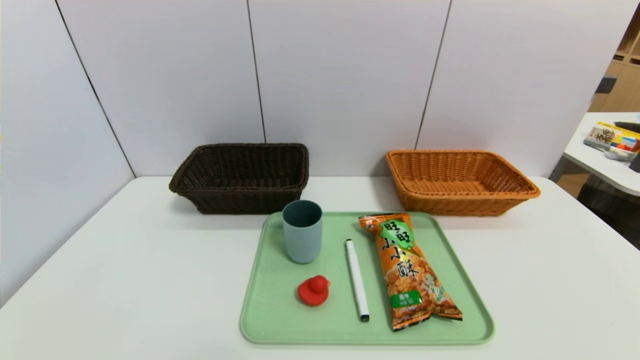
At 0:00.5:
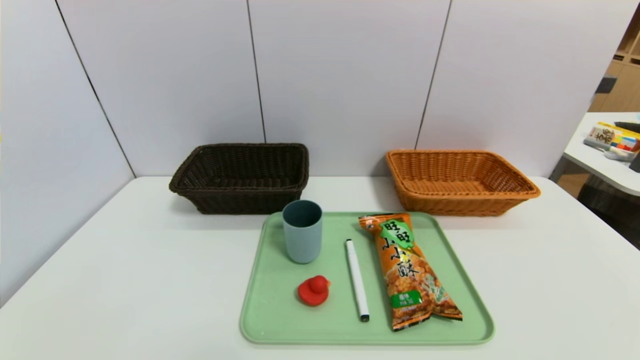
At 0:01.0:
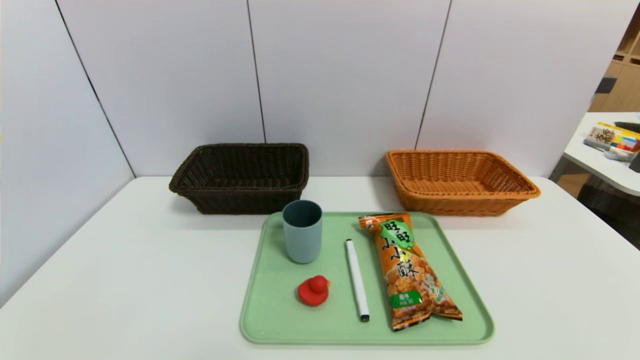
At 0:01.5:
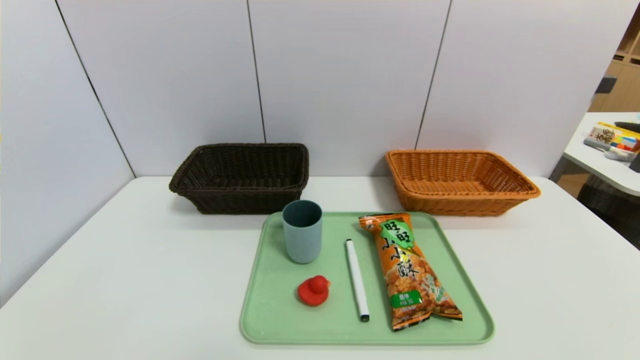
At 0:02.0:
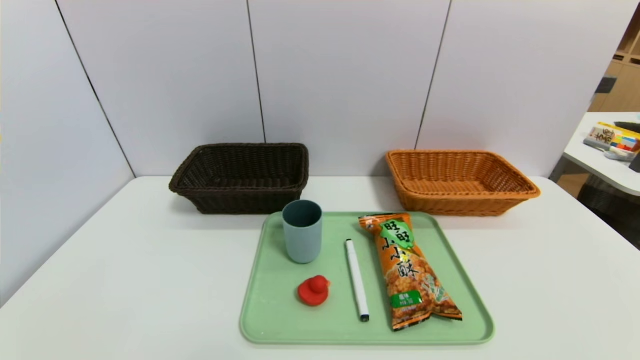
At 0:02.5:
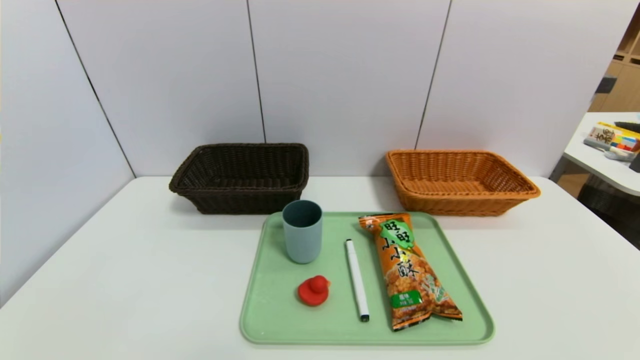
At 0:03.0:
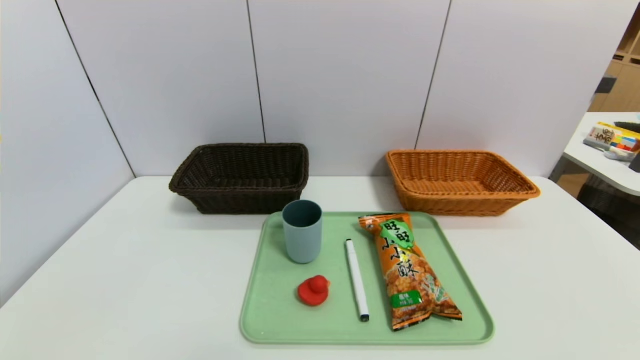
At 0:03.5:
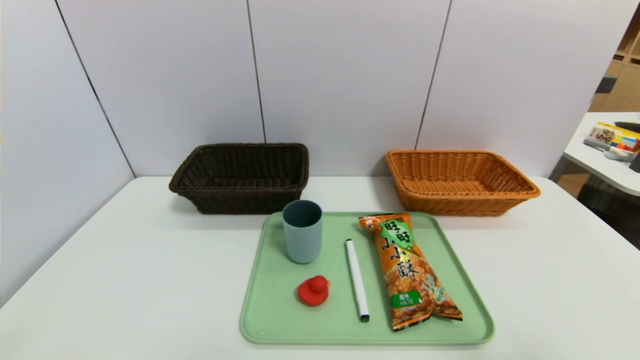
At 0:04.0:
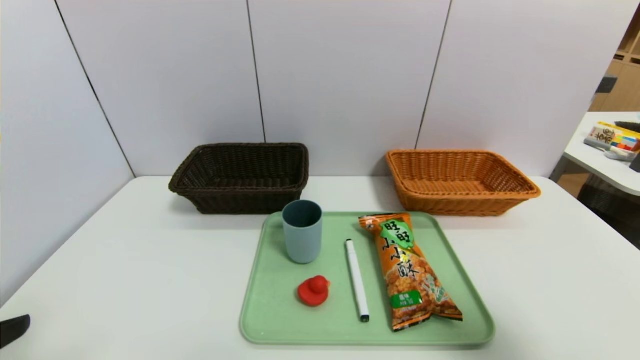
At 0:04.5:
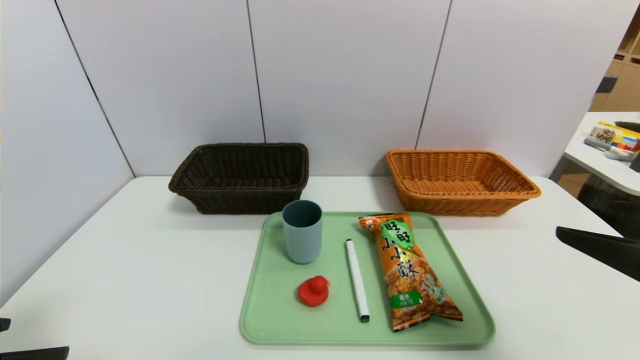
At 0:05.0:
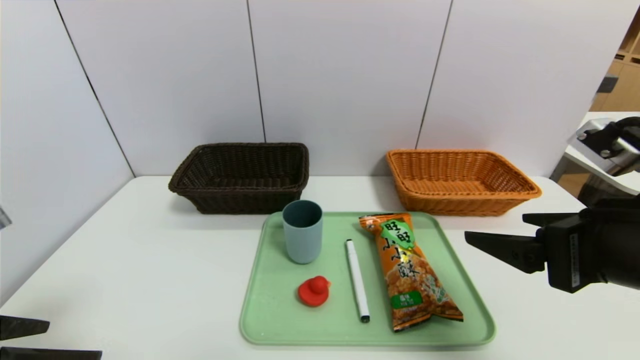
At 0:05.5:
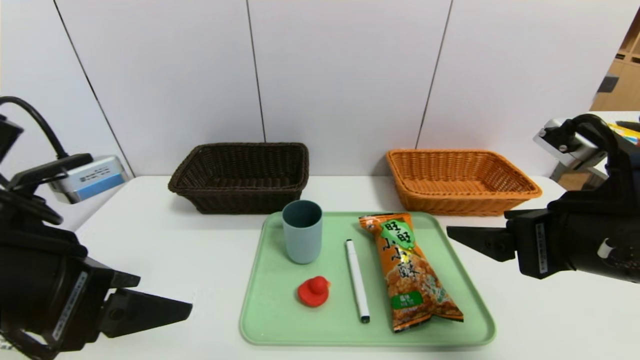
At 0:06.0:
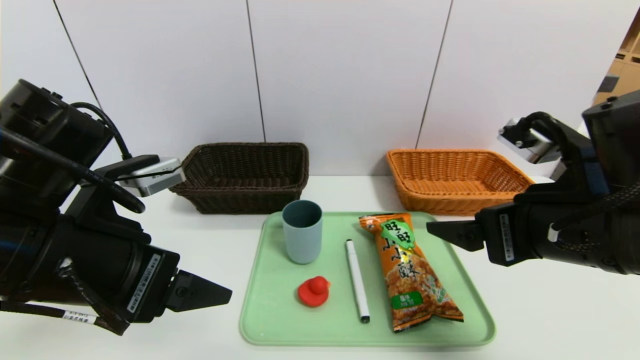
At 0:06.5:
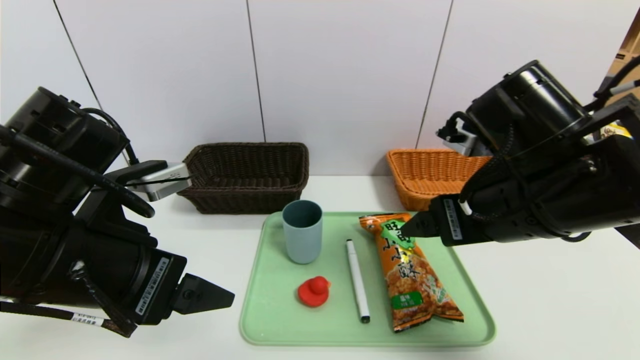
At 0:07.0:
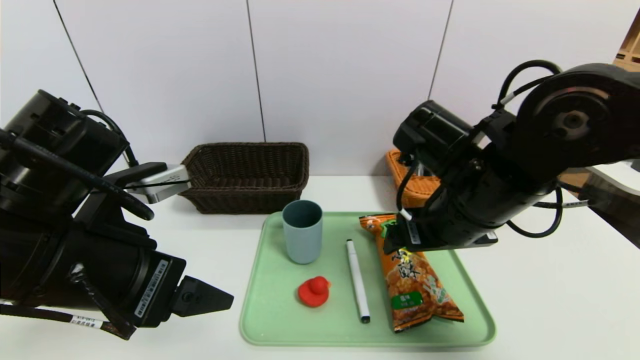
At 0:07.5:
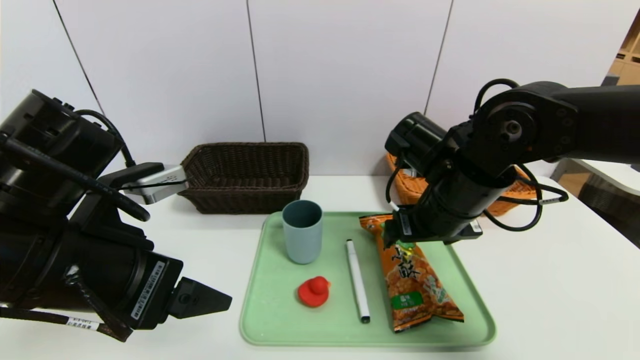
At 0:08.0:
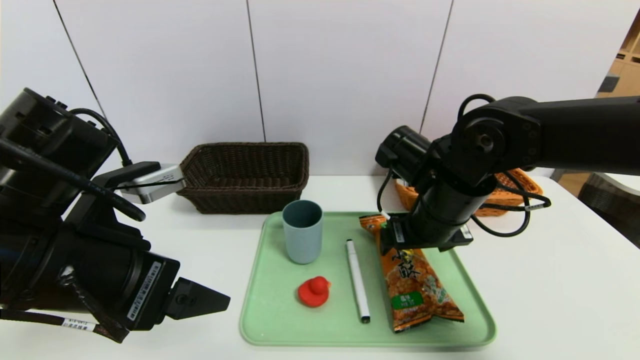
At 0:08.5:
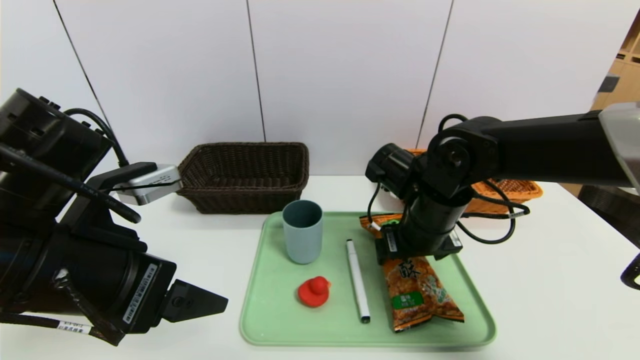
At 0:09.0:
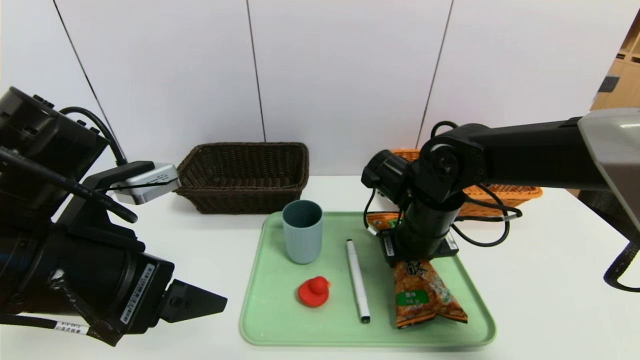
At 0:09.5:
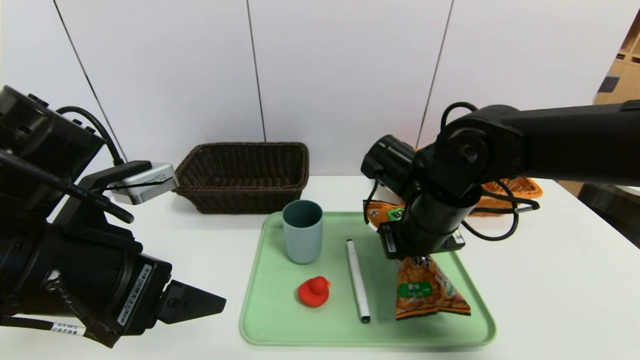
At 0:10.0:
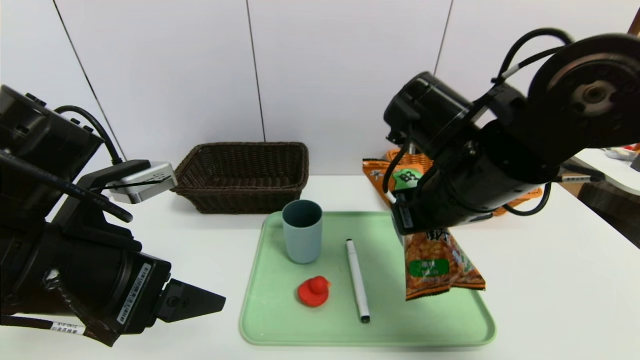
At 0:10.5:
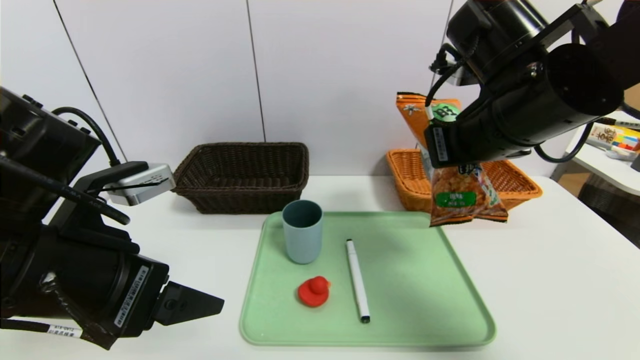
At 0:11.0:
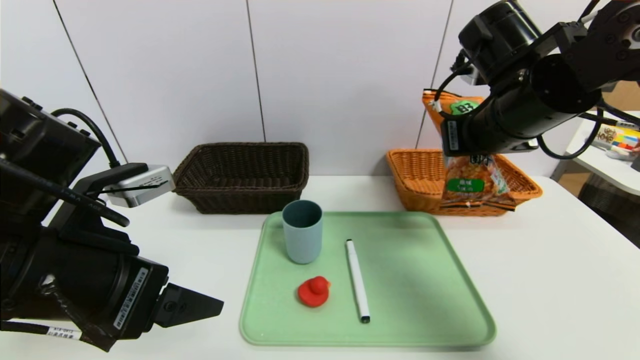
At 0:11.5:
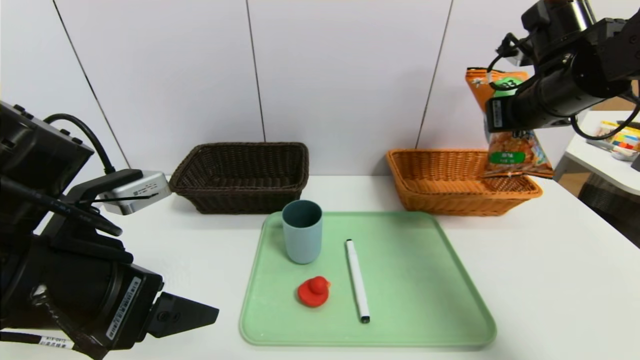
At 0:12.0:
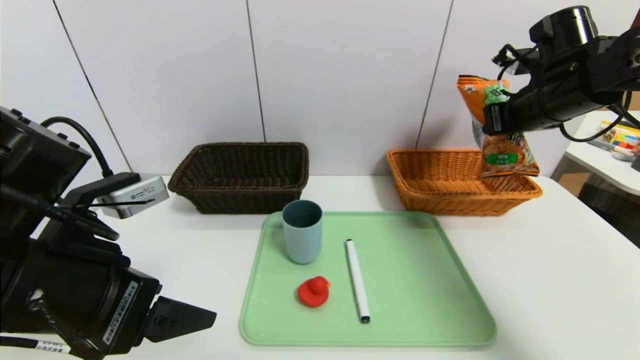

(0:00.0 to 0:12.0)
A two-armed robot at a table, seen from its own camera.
Task of the whole recording: place the food in the right basket with the right gripper, and place the non food items in the left basket with the left gripper.
0:00.0 - 0:02.0: The two grippers keep their place.
0:02.0 - 0:04.0: The right gripper travels upward and forward by approximately 20 cm.
0:04.0 - 0:06.0: The right gripper goes about 15 cm to the left and forward. The left gripper is displaced forward and to the right by approximately 15 cm.
0:06.0 - 0:08.0: The right gripper is displaced forward, to the left and downward by about 15 cm.
0:08.0 - 0:10.0: The right gripper is displaced upward by about 5 cm, and closes.
0:10.0 - 0:12.0: The right gripper goes some 20 cm to the right and forward.

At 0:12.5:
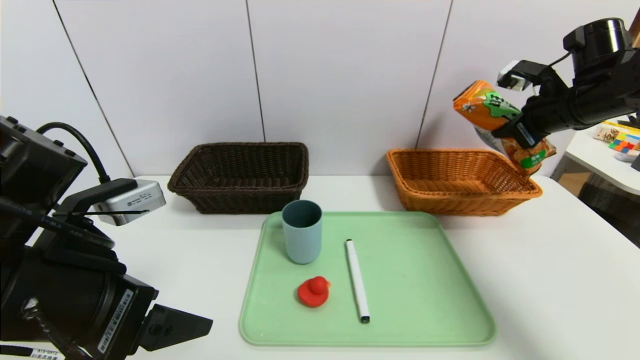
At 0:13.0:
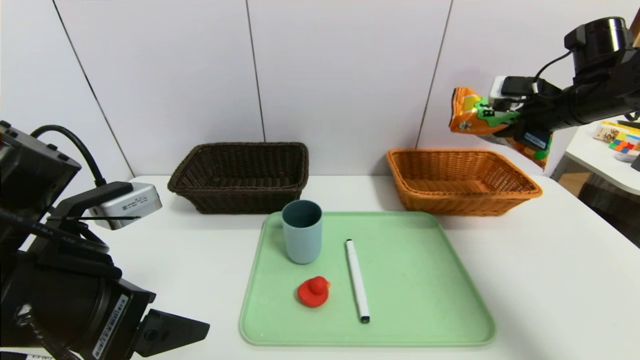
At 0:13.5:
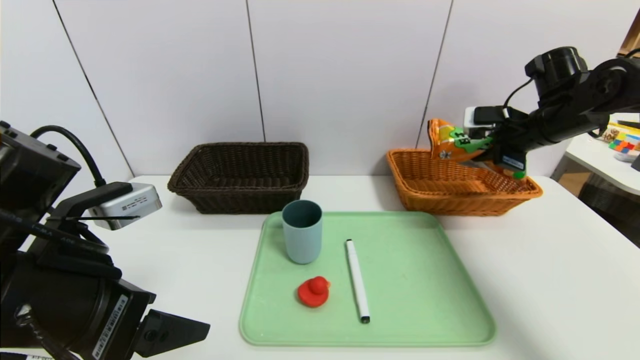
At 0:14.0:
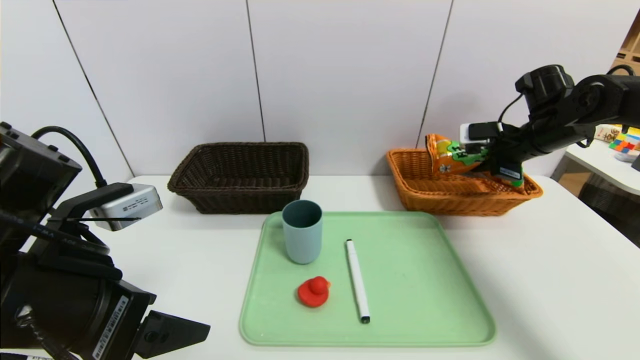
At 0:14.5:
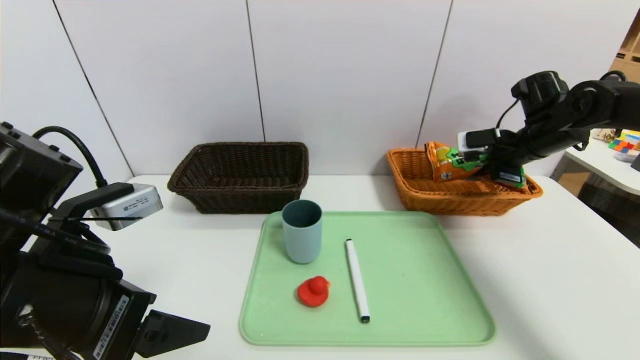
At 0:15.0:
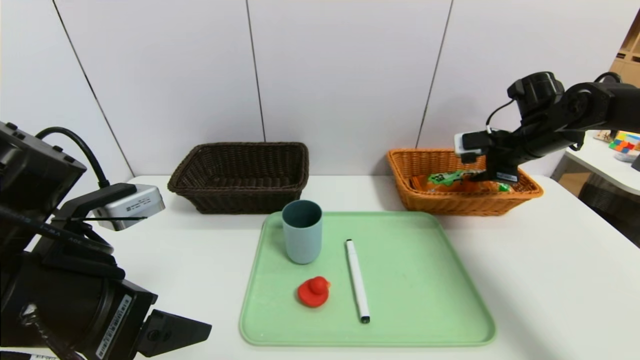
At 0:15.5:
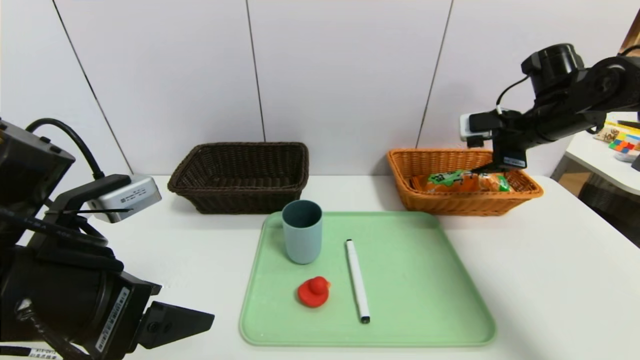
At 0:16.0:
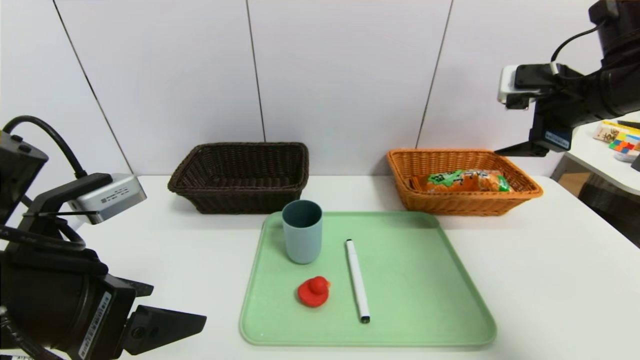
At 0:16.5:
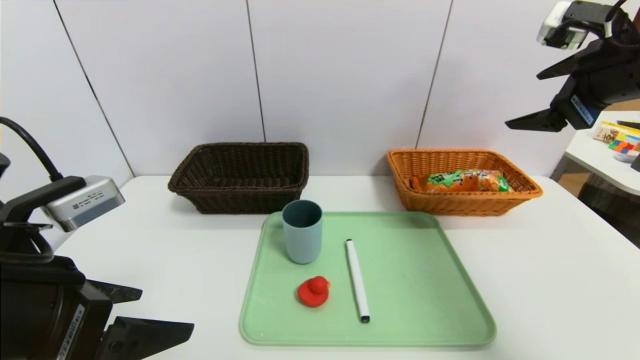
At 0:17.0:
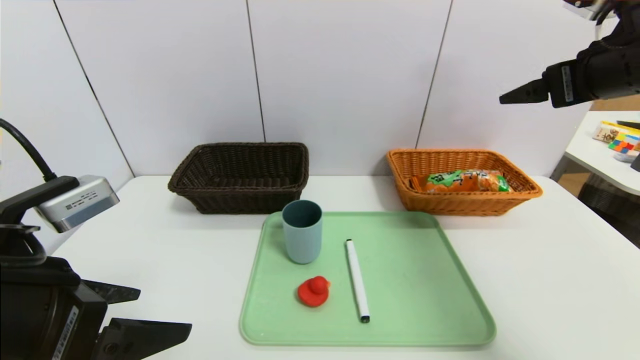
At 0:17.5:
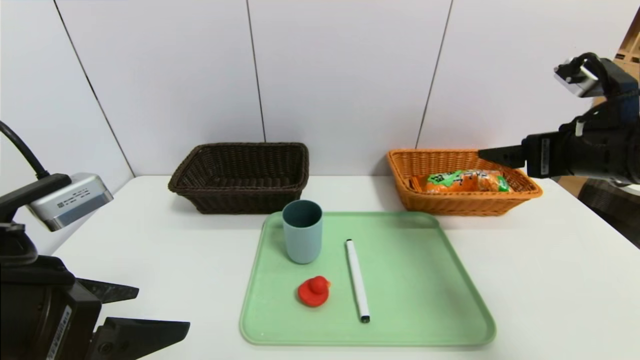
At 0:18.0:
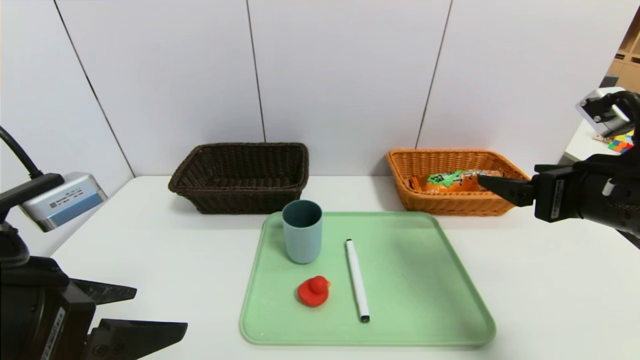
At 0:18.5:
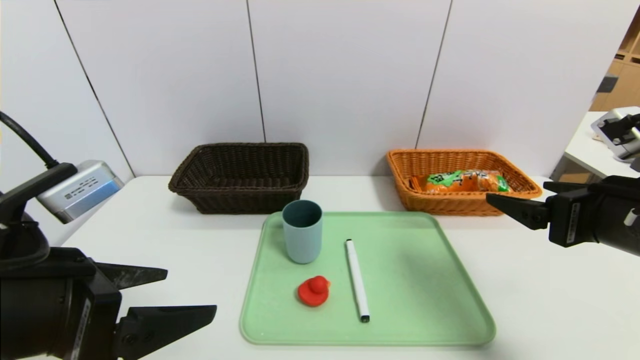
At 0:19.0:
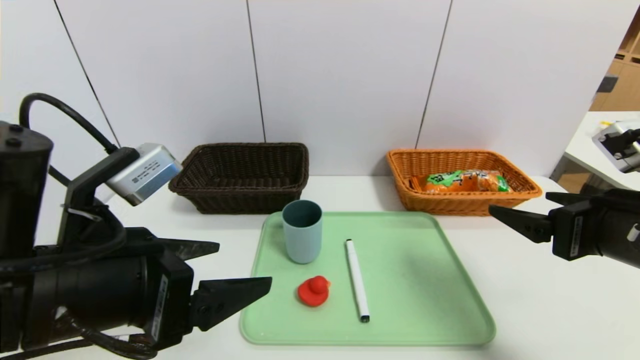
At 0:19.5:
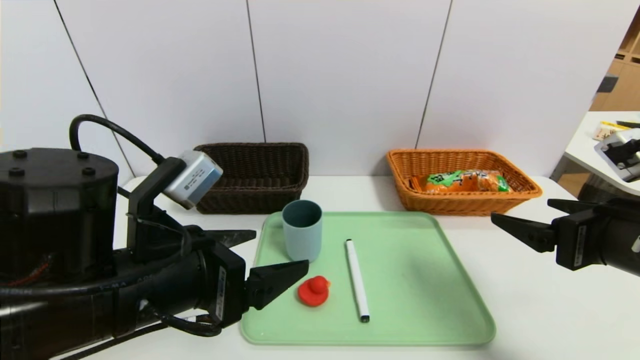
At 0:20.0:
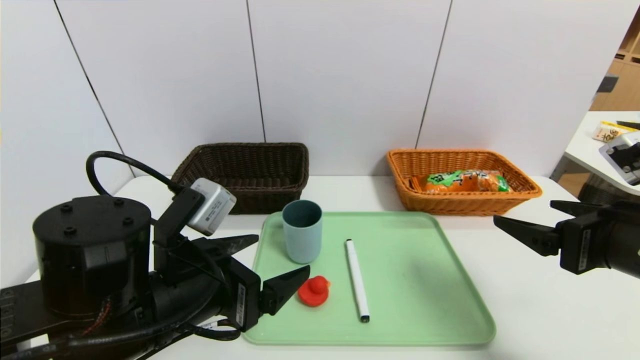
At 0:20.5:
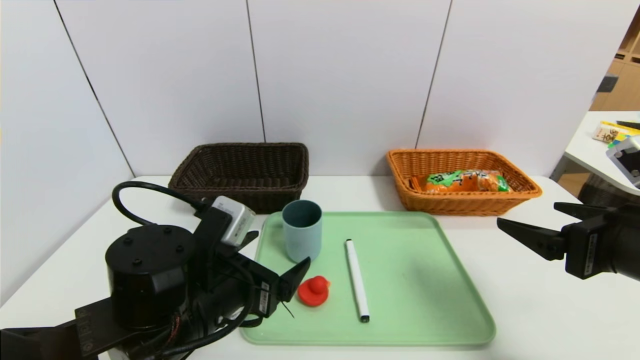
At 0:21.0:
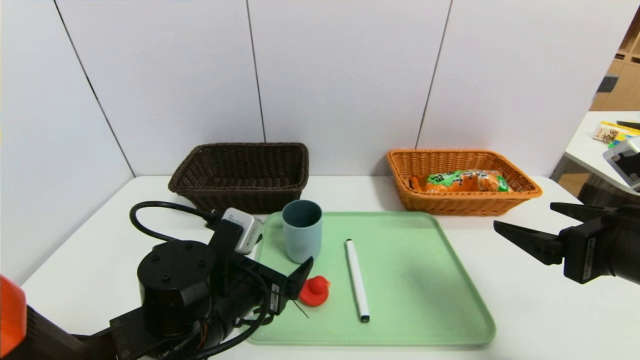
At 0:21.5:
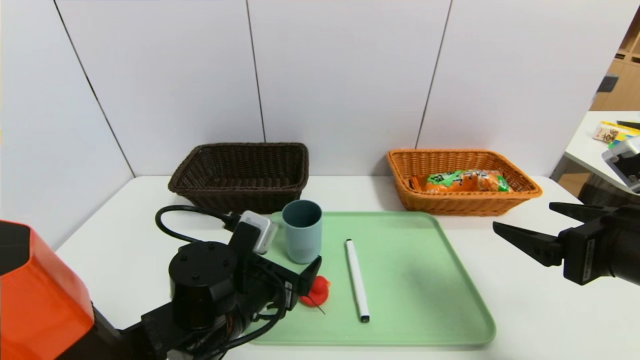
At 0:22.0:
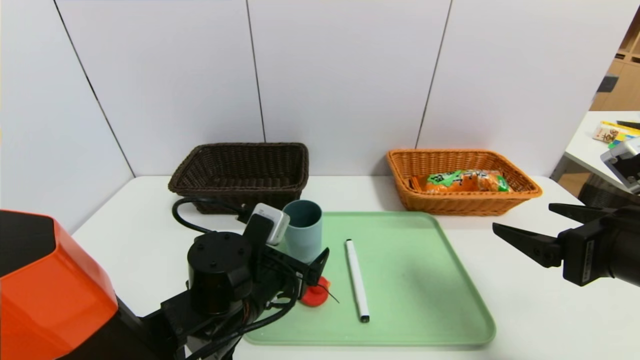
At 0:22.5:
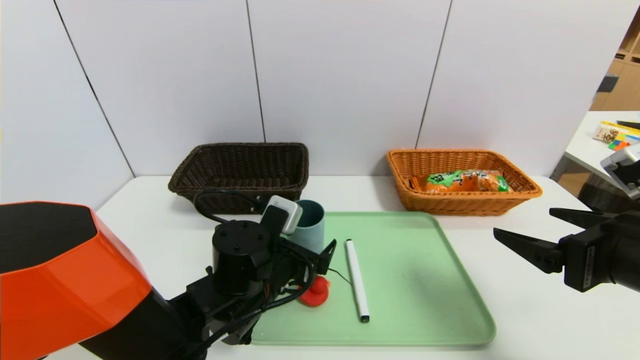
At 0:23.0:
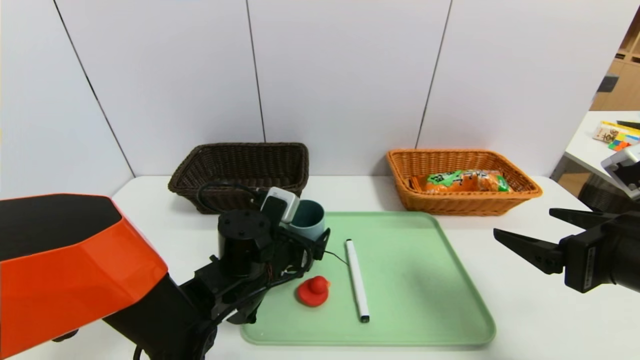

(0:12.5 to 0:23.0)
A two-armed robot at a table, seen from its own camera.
Task of the whole recording: place the food in the right basket with the right gripper, and place the non food items in the left basket with the left gripper.
Step, 0:12.5 - 0:15.0: Grasp the cookie and put it in the right basket.
0:12.5 - 0:14.5: The right gripper shifts roughly 5 cm downward.
0:14.5 - 0:16.5: The right gripper goes approximately 20 cm upward and backward, and opens its fingers.
0:16.5 - 0:19.0: The right gripper is displaced downward and backward by some 15 cm.
0:19.0 - 0:21.0: The left gripper shifts some 15 cm downward, forward and to the right.
0:21.0 - 0:23.0: The left gripper goes roughly 5 cm forward.
